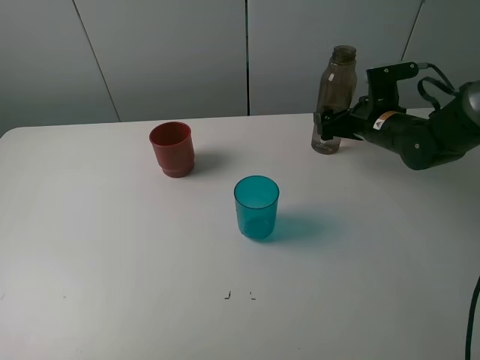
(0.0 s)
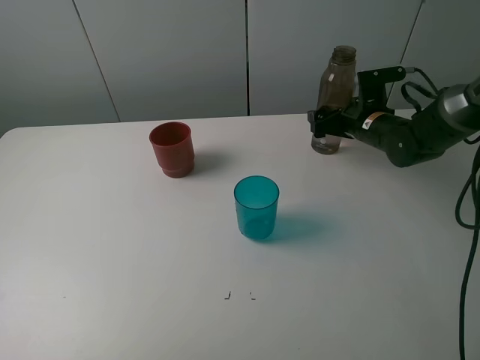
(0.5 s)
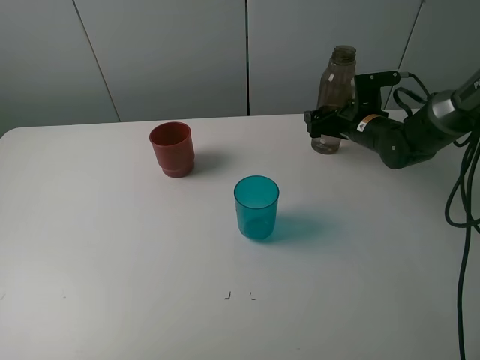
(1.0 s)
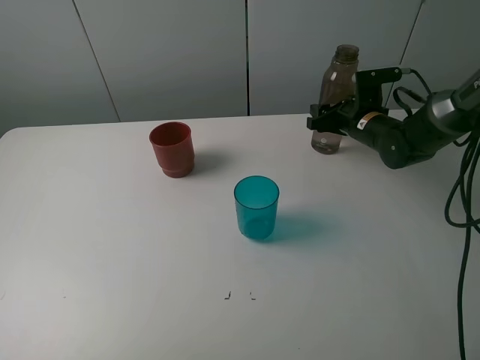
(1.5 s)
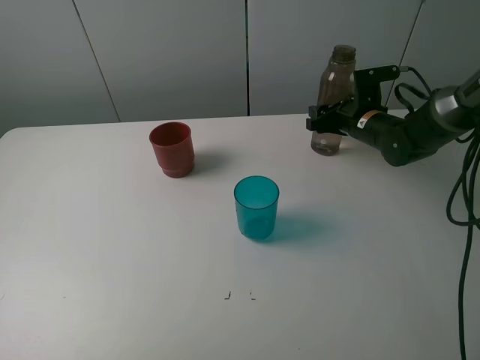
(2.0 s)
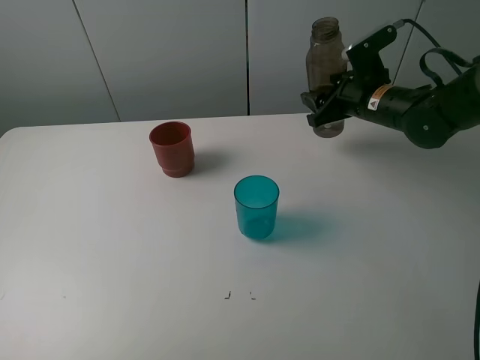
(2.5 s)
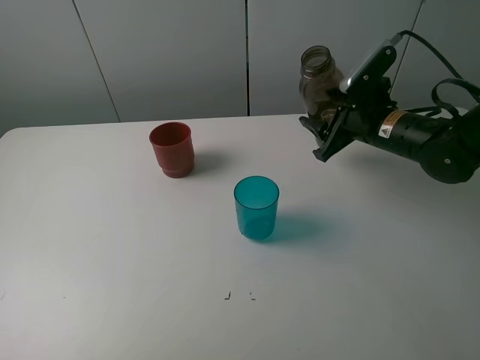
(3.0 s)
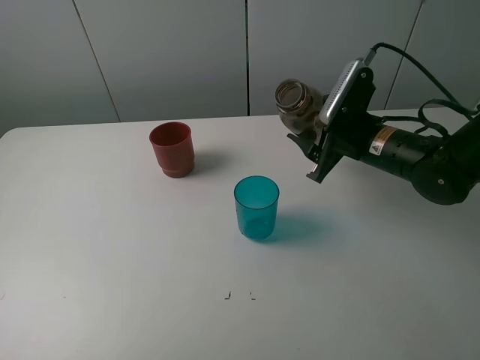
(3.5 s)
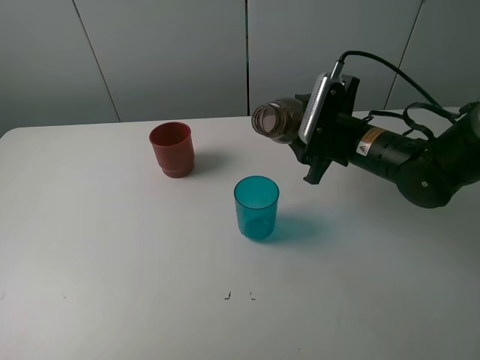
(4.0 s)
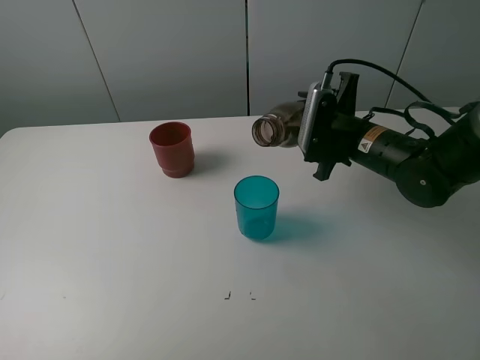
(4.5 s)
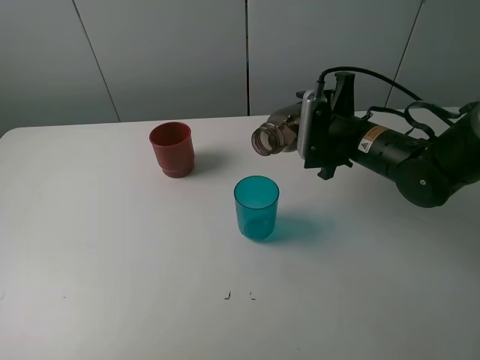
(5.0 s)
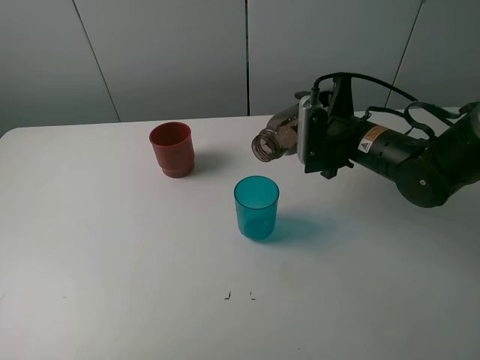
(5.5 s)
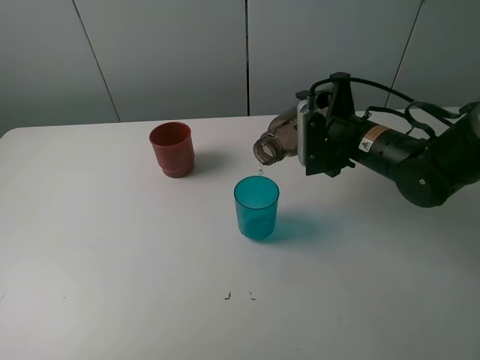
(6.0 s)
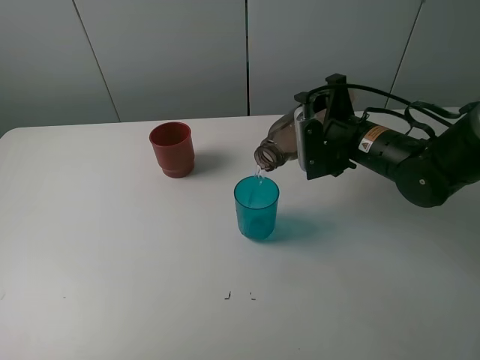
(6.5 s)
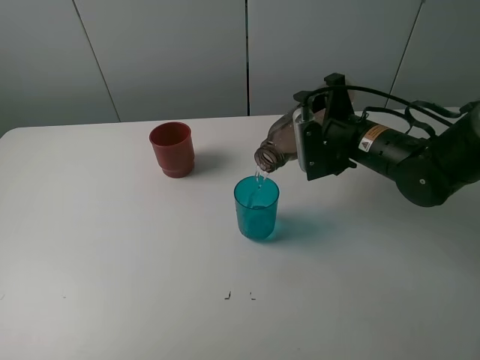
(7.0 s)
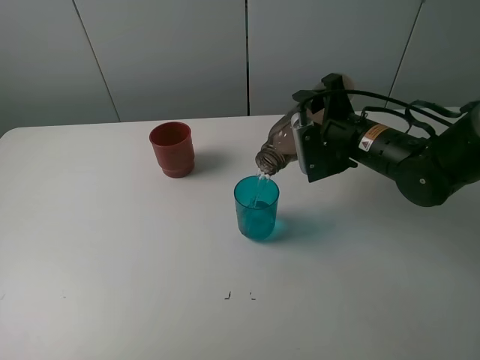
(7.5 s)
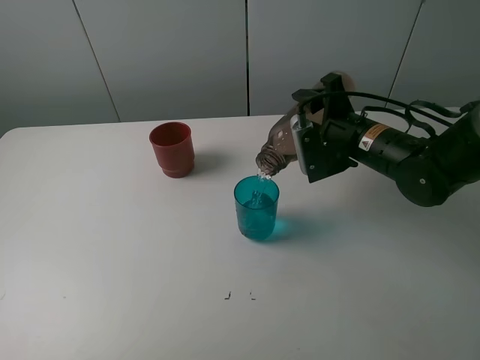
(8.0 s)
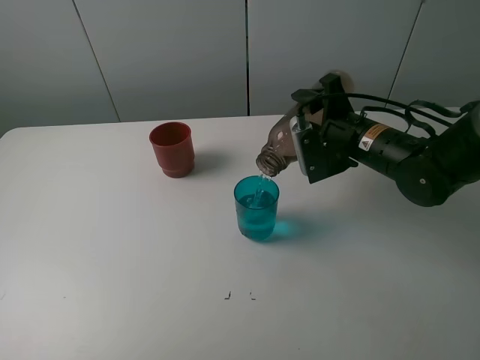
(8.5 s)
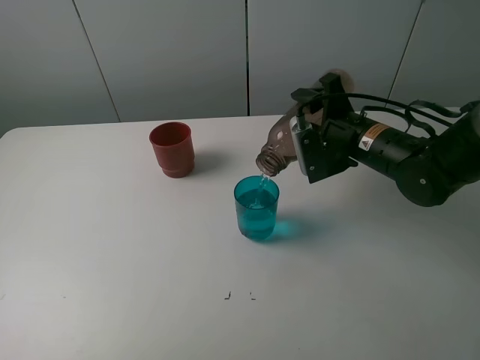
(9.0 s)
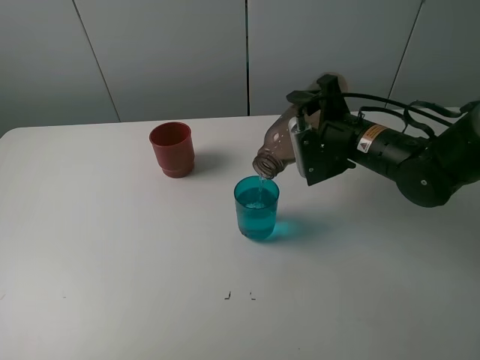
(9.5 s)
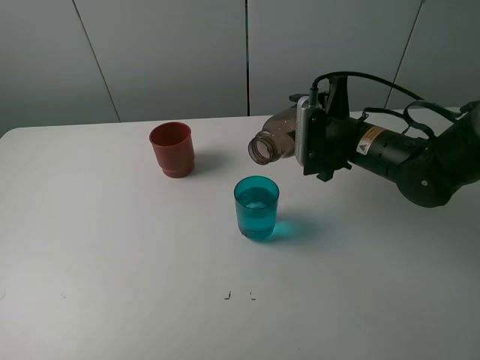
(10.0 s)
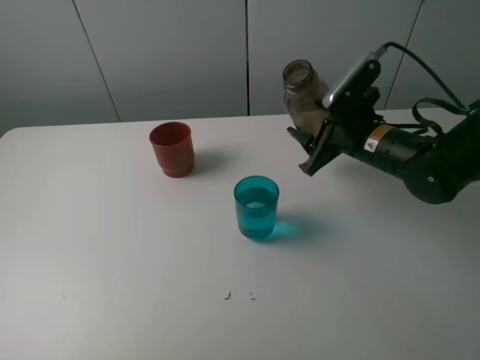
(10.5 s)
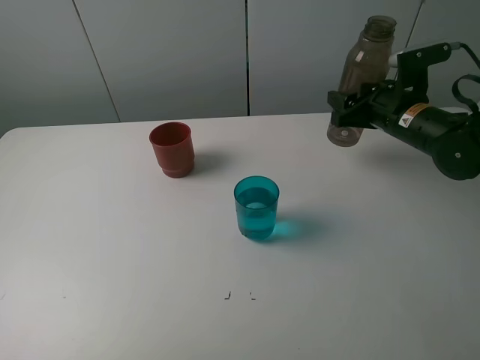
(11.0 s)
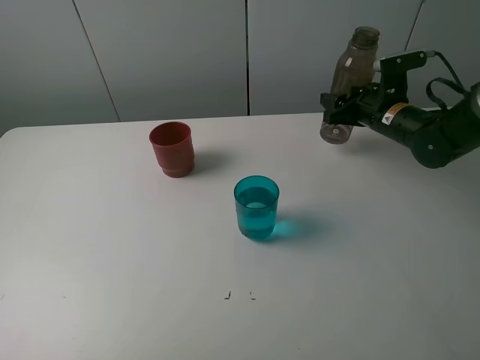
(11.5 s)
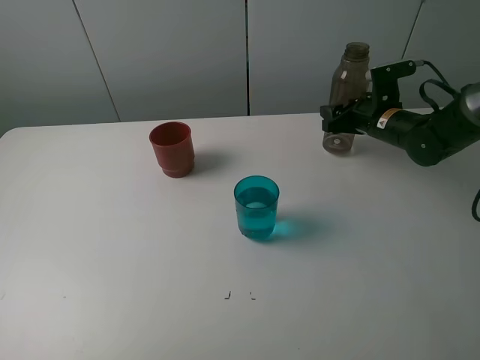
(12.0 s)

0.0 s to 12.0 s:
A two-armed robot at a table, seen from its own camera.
Task of the whole recording: pick up the bottle and pour water into the cup, then pick up the cup containing water and pour it into another cup.
Step, 2.0 to 9.5 s: Pour water from brown bottle to blue cup with the right gripper.
0.0 to 2.0 s: The right gripper closes up.
2.0 to 4.0 s: The right gripper is displaced backward by some 10 cm.
6.0 to 8.0 s: There are only small adjustments of the grippers.
10.0 to 12.0 s: The right gripper moves forward and to the right, some 15 cm.

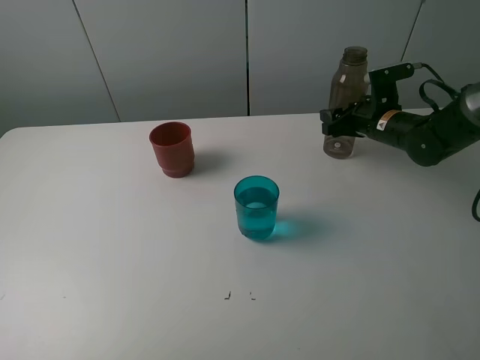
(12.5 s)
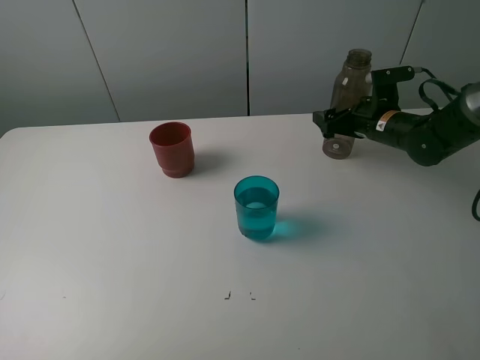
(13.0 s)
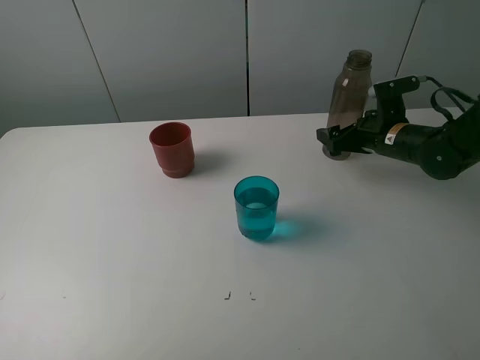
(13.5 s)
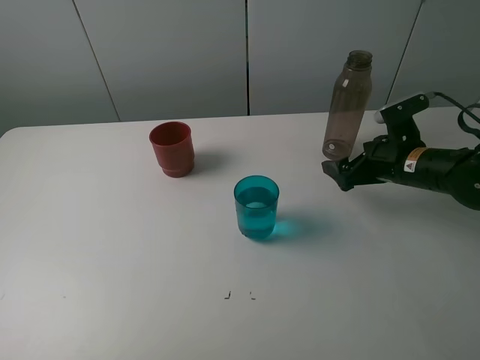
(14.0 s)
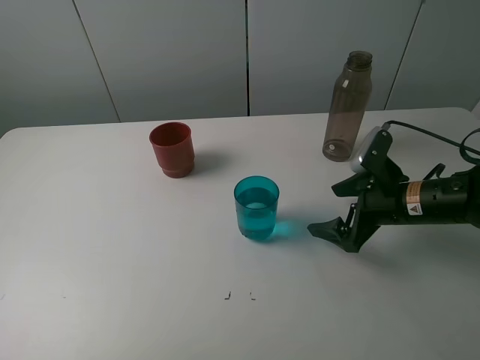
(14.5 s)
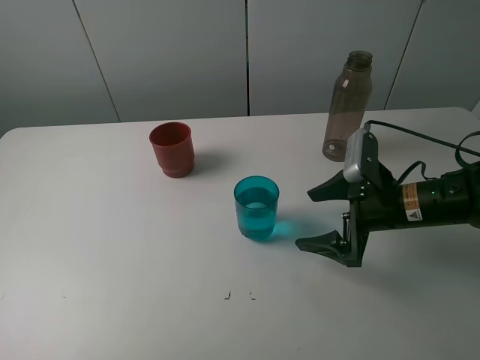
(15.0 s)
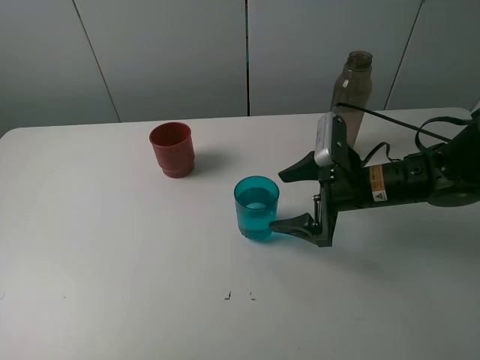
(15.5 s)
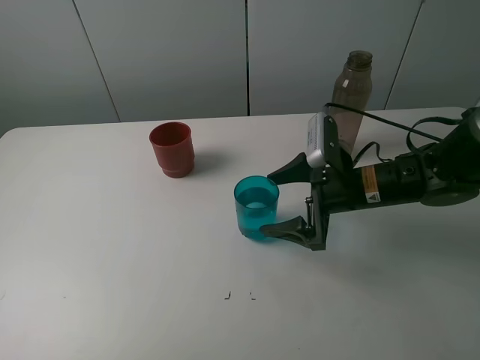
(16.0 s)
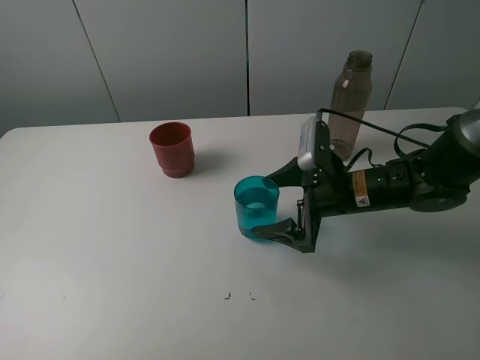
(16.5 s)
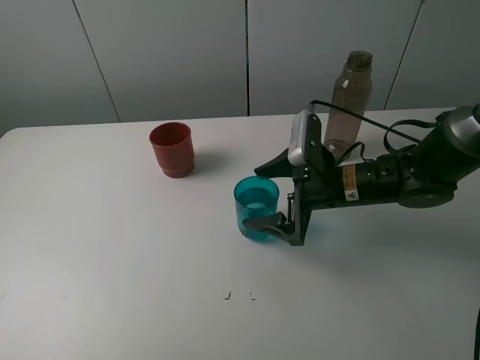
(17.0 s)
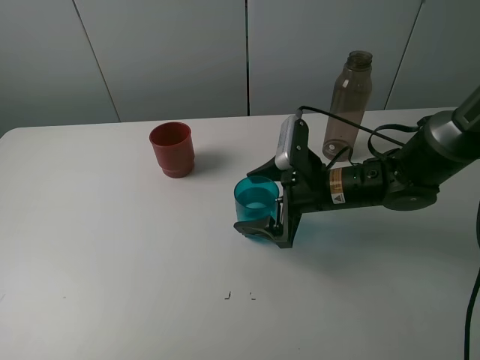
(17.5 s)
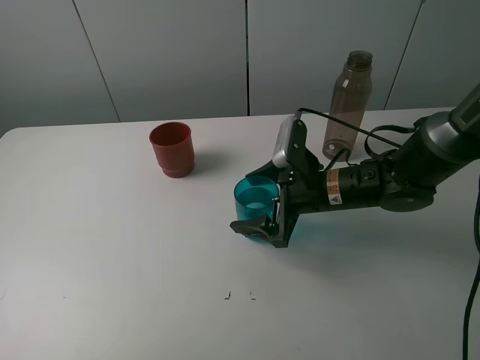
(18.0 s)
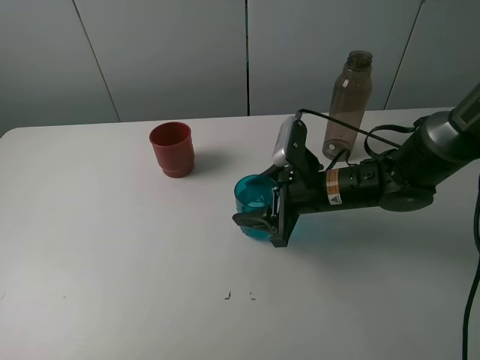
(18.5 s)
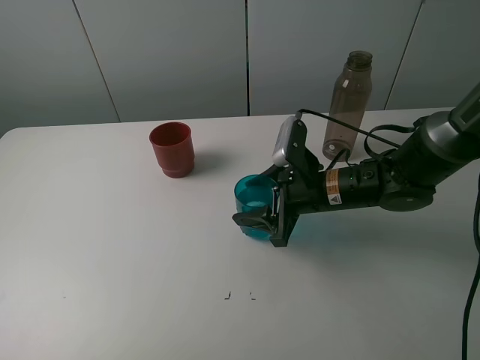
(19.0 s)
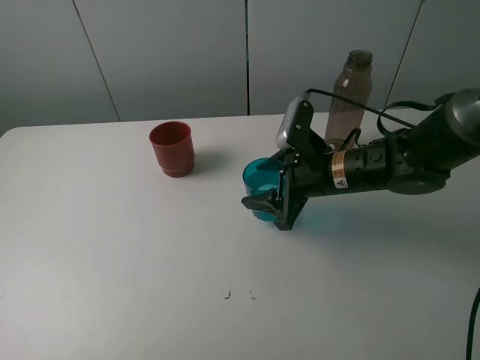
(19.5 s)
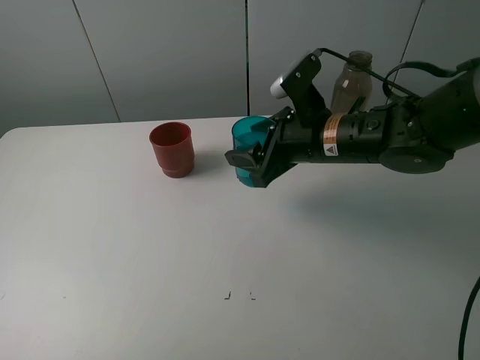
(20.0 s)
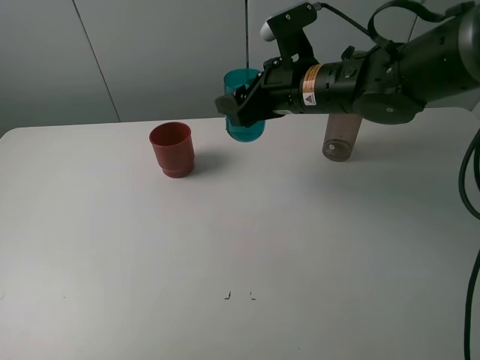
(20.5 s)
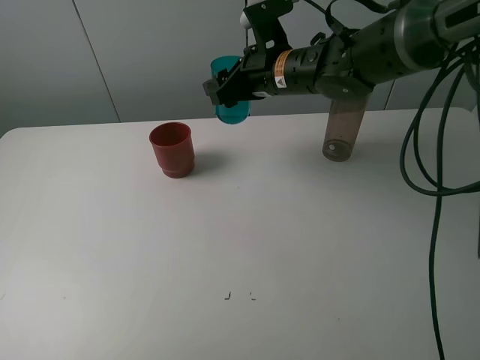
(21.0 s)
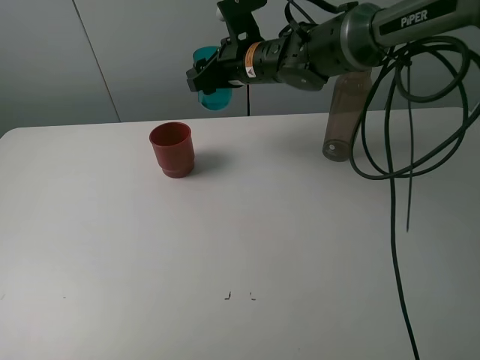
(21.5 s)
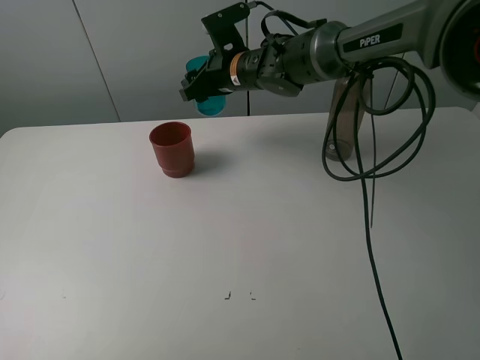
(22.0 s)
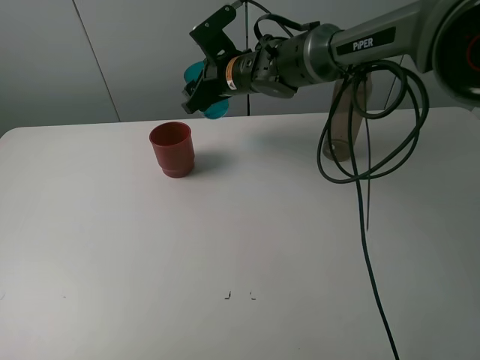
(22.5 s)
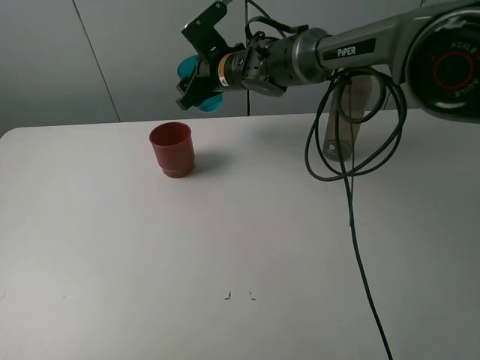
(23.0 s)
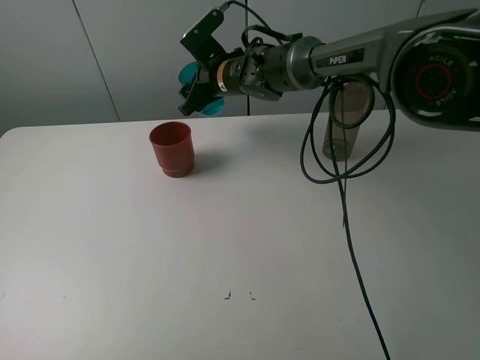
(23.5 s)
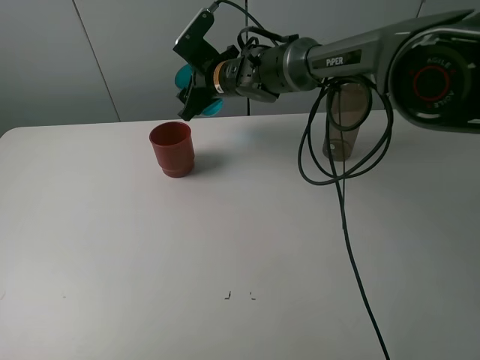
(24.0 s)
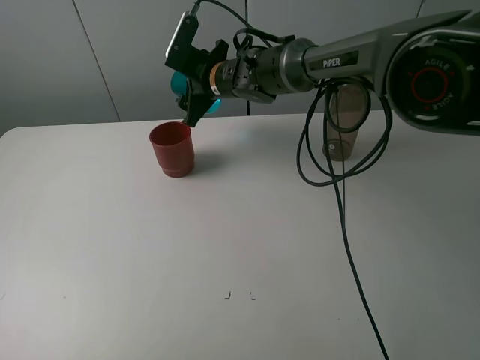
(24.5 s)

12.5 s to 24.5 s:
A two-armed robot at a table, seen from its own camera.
Task of the whole recording: pick up the bottle and pour water into the cup, then pick up the cup containing water and pour it into another cup.
Step, 13.5 to 18.5 s: Grasp the blue cup with the right gripper.
12.5 to 14.5 s: The right gripper is displaced backward by approximately 15 cm, and opens.
14.5 to 16.5 s: The right gripper shifts some 10 cm to the left.
16.5 to 18.5 s: The right gripper closes.
18.5 to 20.5 s: The right gripper travels upward and forward by approximately 15 cm.
20.5 to 22.5 s: The right gripper goes some 15 cm forward and to the left.

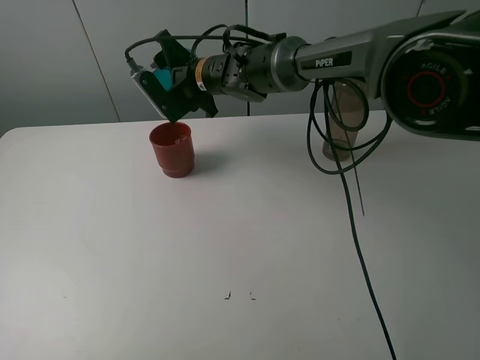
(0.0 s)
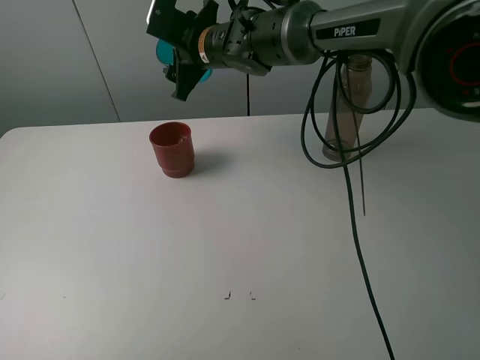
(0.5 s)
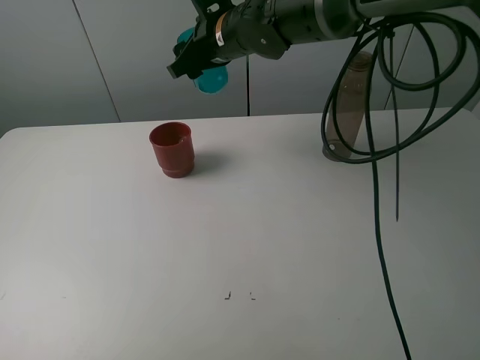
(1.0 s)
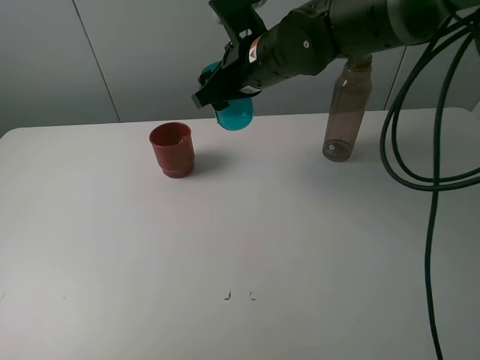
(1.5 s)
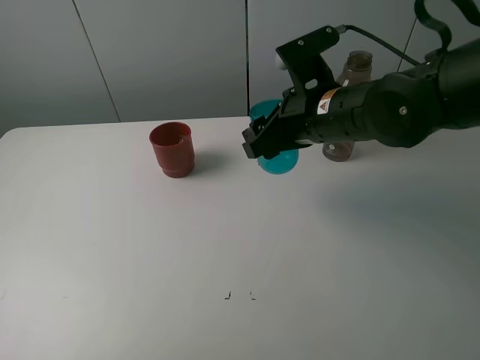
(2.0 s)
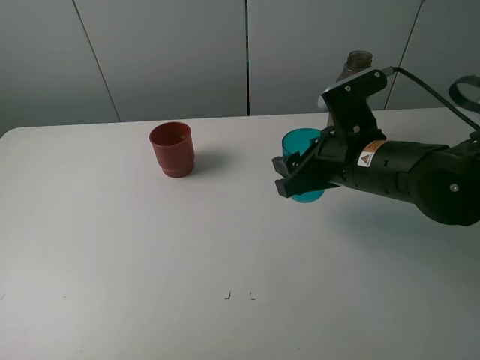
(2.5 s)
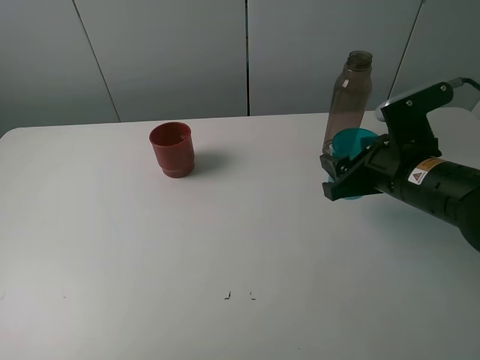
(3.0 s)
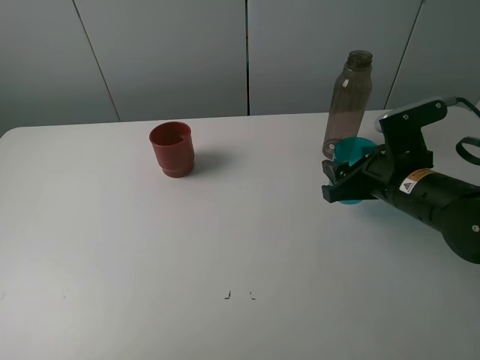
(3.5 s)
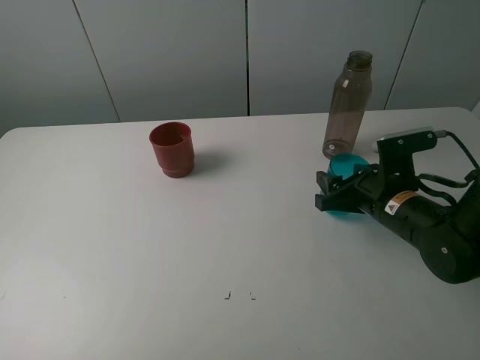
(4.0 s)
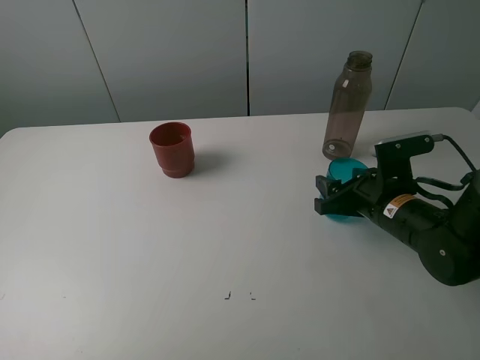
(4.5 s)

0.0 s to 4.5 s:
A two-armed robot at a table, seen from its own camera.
Task of the whole recording: pick up the bottle and pour water into the cup, then pick up the cup containing water and pour it into another cup.
0.0 to 2.0 s: The right gripper heads backward and to the right, covering about 25 cm.
2.0 to 4.5 s: The right gripper is displaced downward and to the right by roughly 15 cm.
